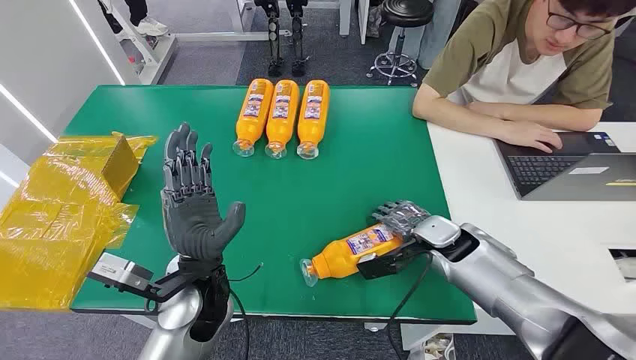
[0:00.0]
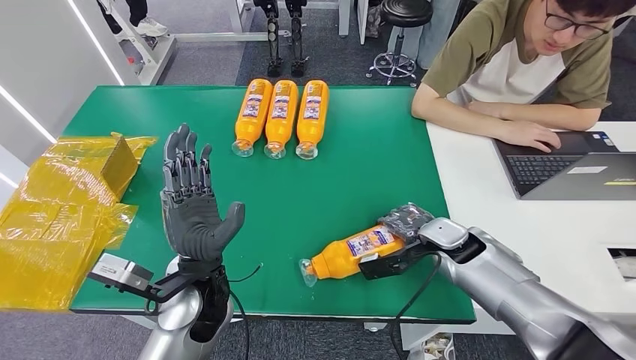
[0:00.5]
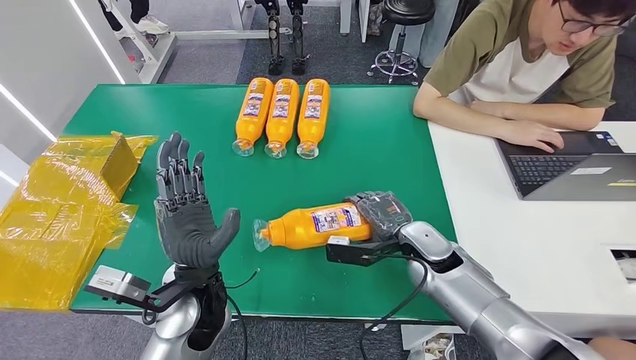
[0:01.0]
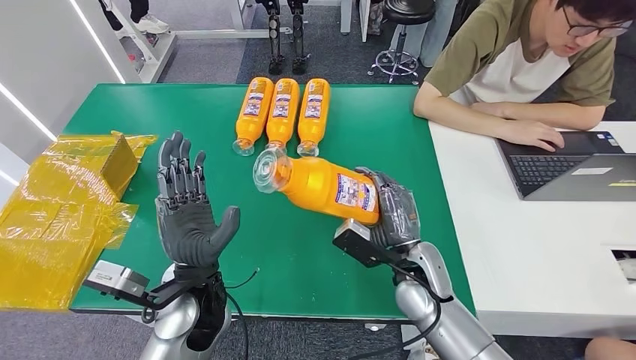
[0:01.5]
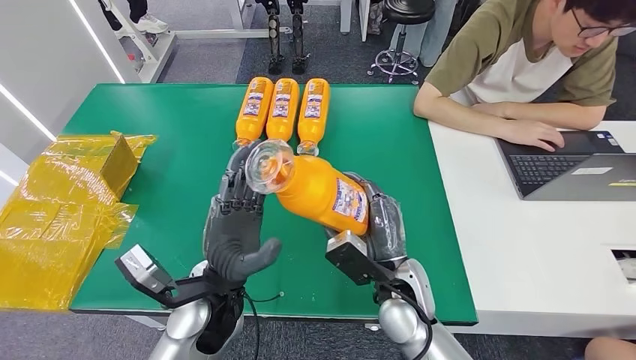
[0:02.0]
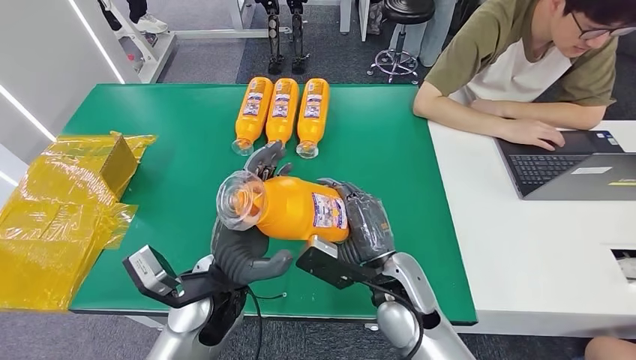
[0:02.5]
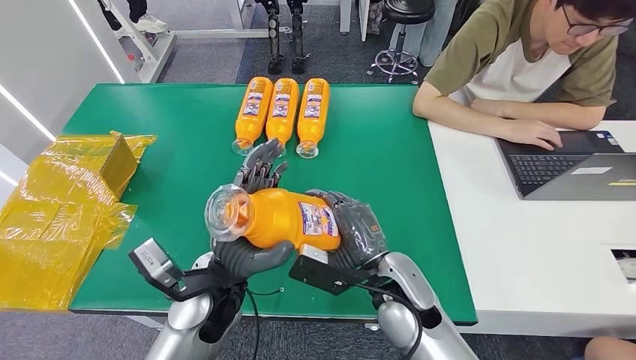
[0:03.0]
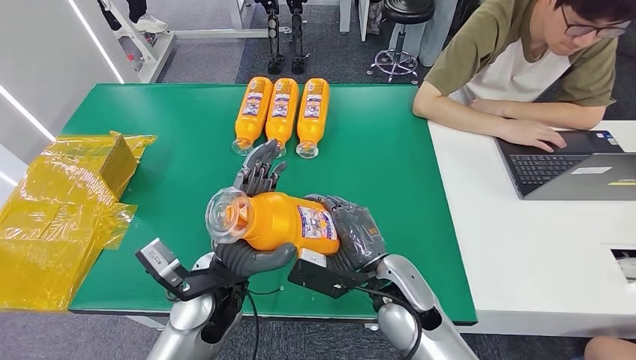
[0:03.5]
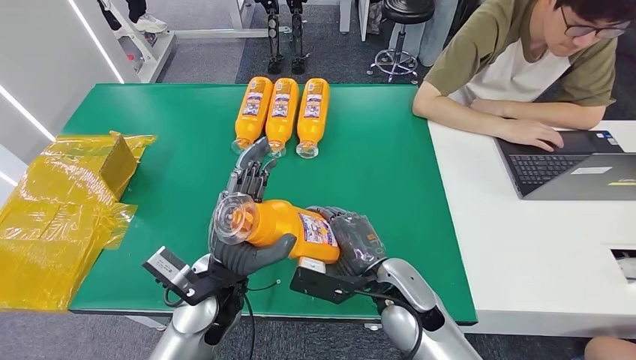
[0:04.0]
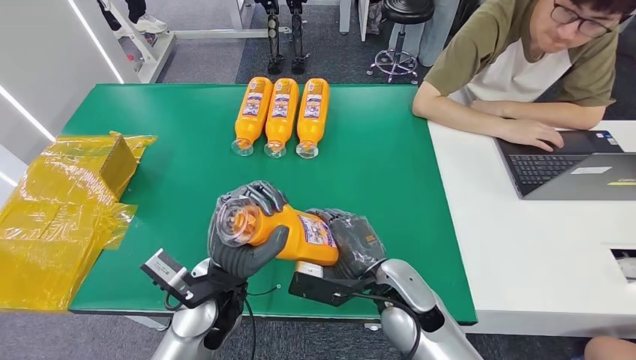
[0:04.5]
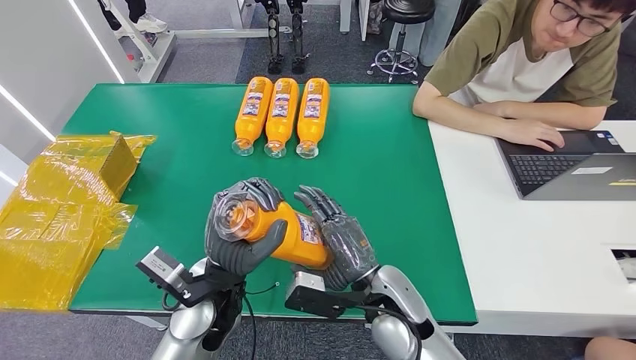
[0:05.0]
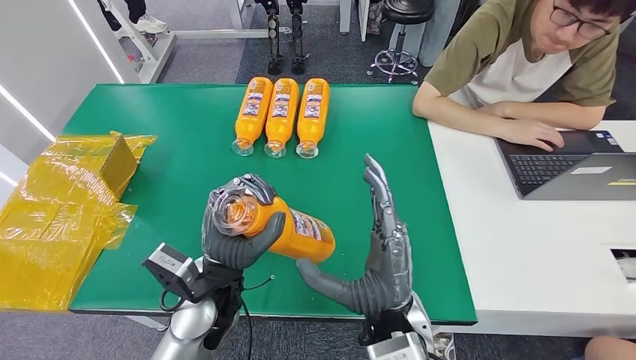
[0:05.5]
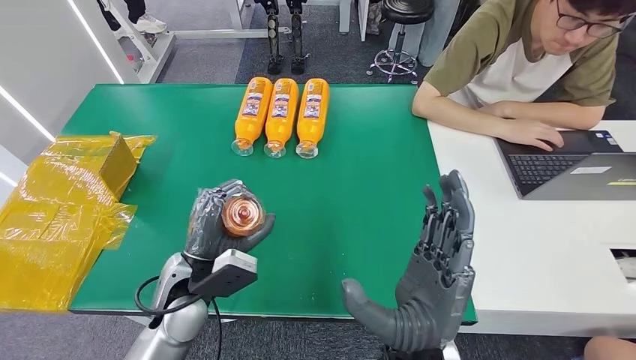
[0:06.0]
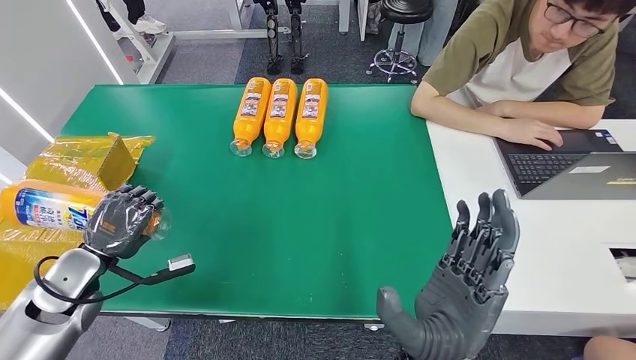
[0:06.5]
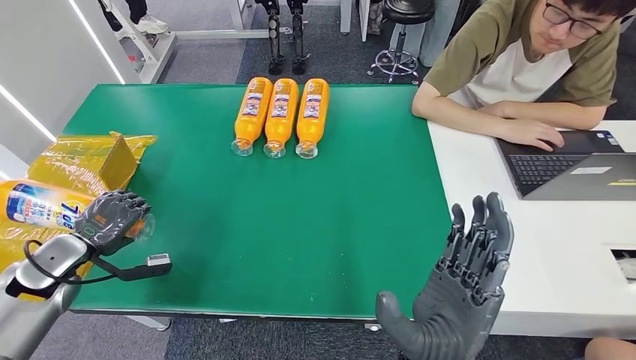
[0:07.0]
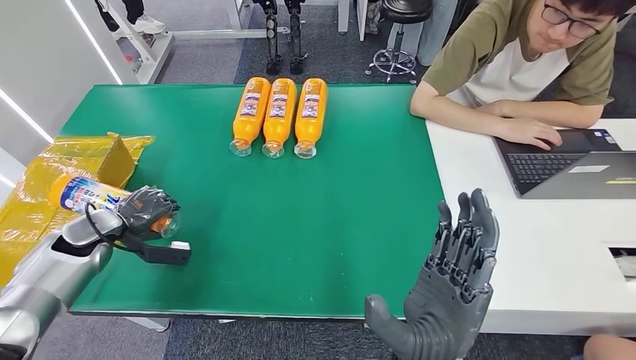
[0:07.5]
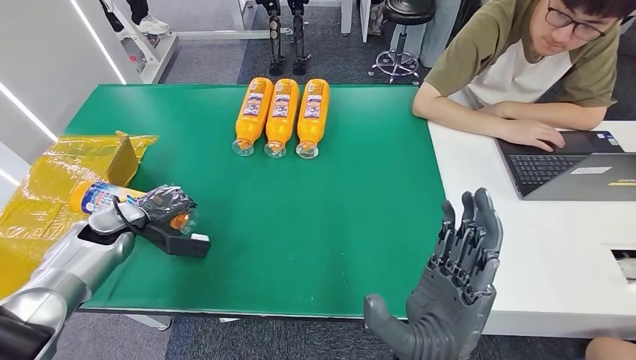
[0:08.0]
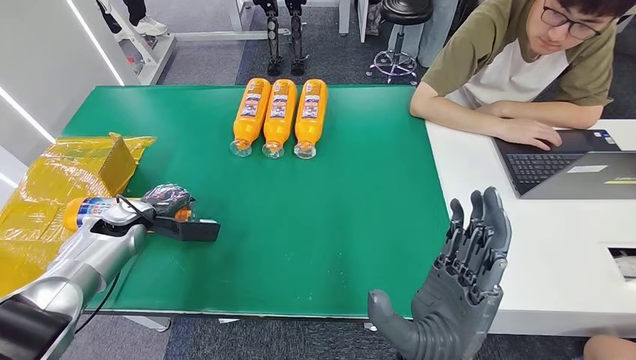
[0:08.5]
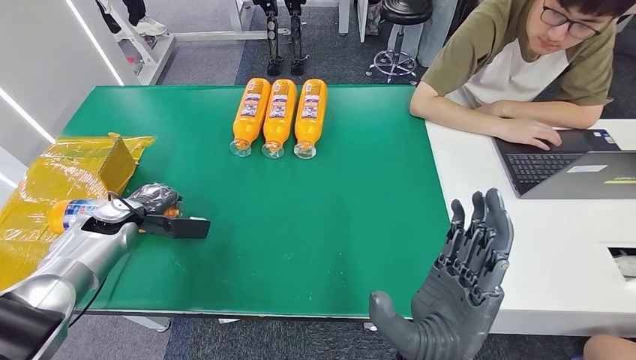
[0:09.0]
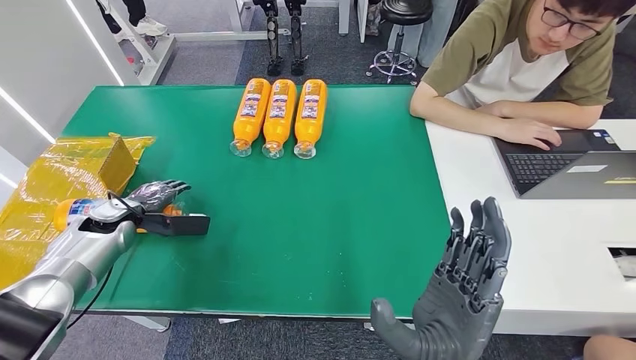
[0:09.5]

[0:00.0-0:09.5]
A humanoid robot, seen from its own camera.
Step, 0:00.0 to 0:01.5: Pick up the bottle from the table.
Step, 0:02.0 to 0:09.5: Turn the bottle to the front side.
0:04.0 to 0:05.5: The right hand shifts about 5 cm backward.
